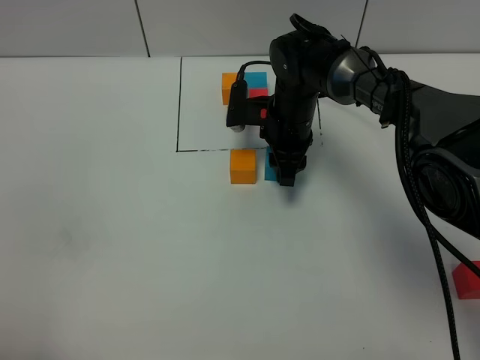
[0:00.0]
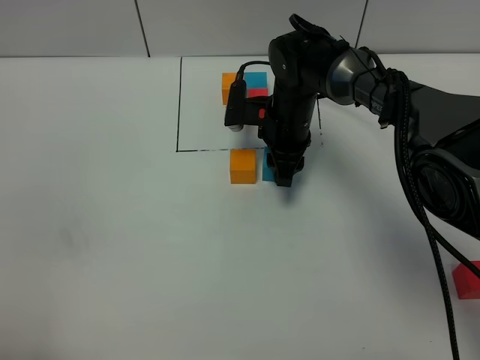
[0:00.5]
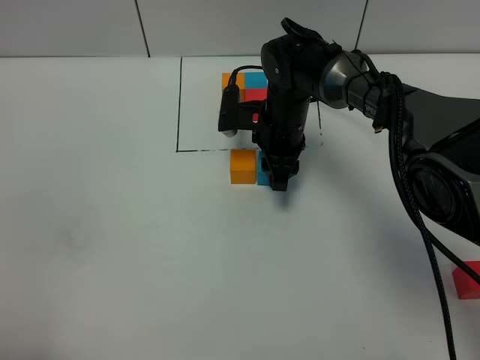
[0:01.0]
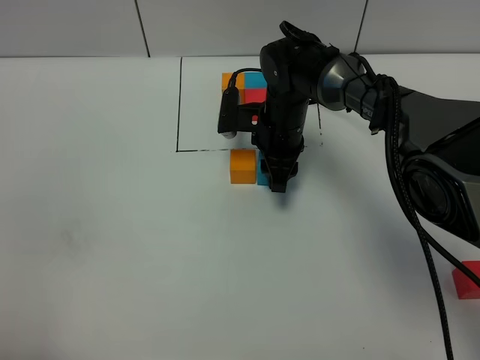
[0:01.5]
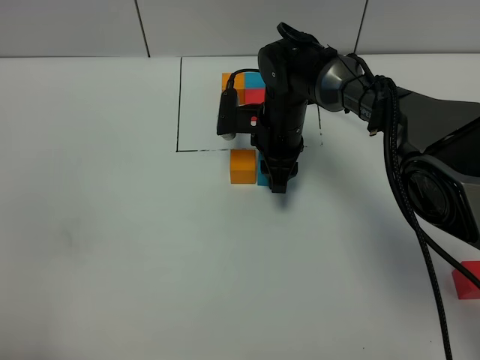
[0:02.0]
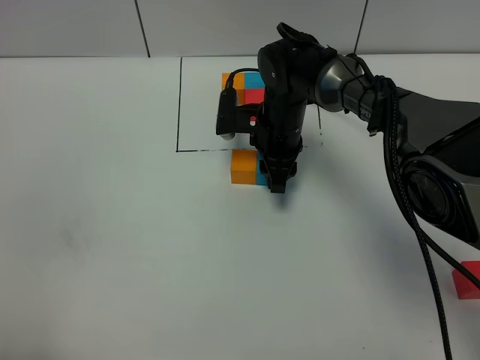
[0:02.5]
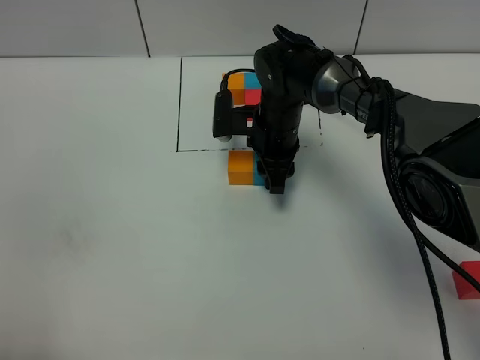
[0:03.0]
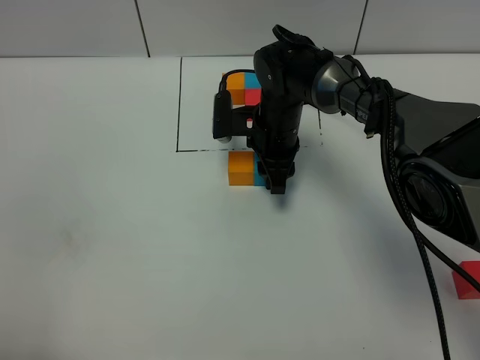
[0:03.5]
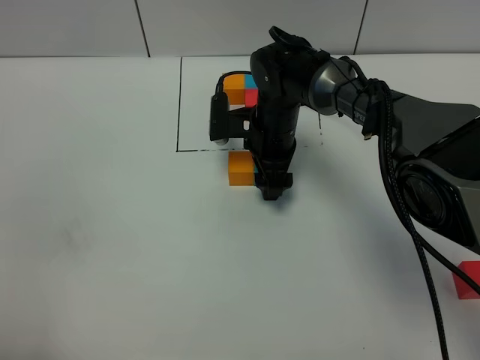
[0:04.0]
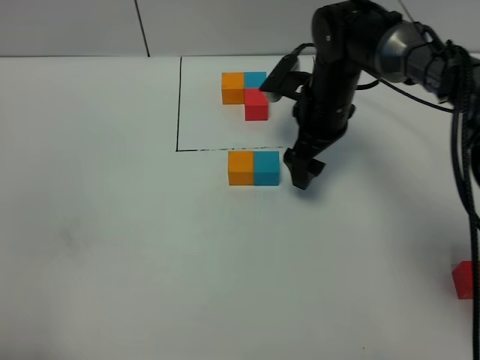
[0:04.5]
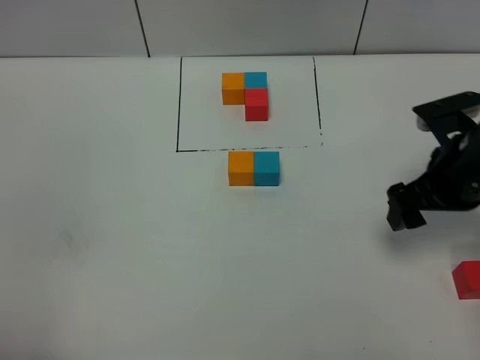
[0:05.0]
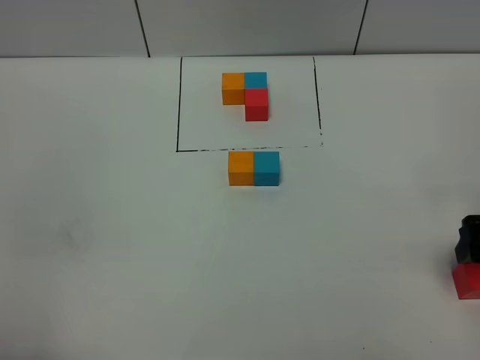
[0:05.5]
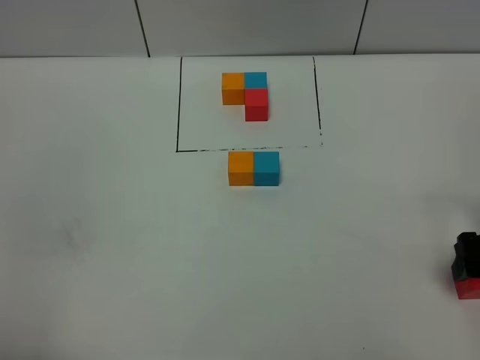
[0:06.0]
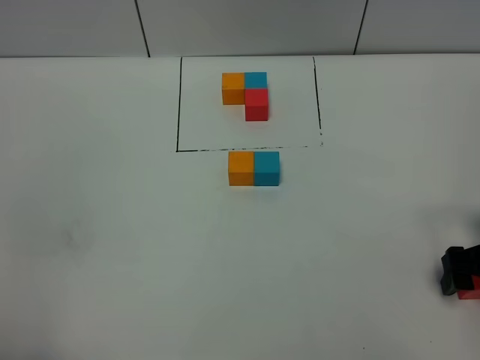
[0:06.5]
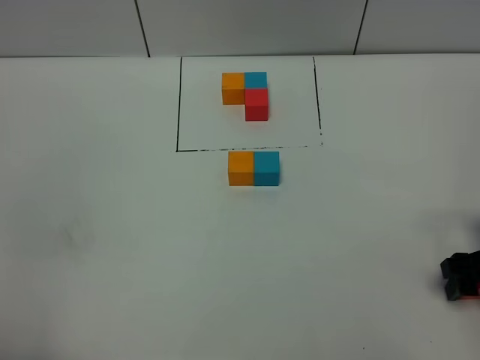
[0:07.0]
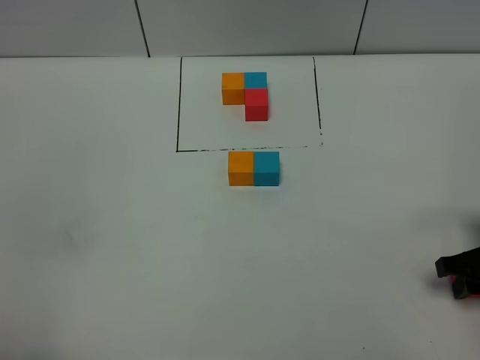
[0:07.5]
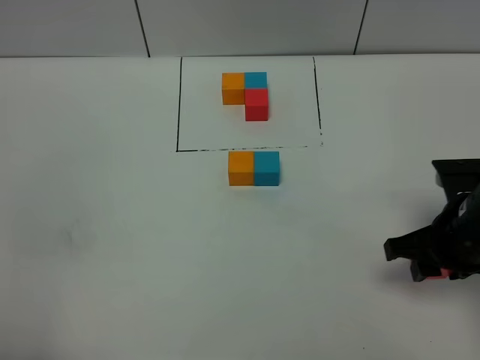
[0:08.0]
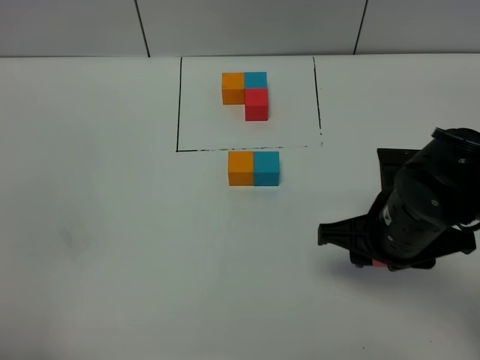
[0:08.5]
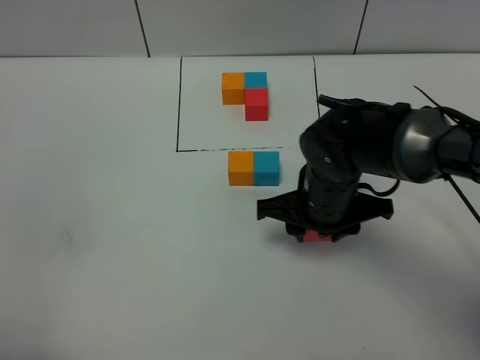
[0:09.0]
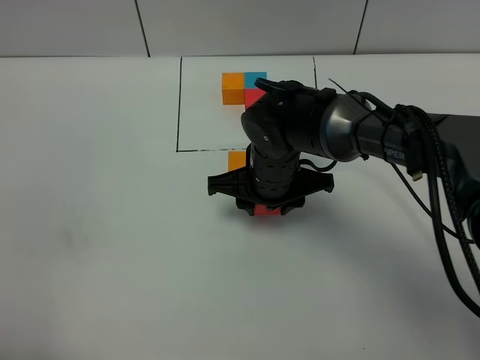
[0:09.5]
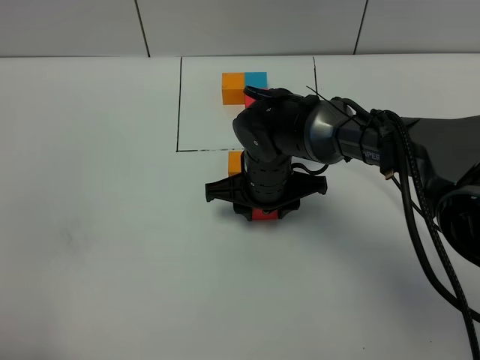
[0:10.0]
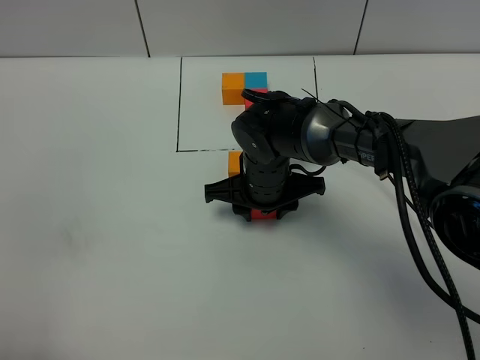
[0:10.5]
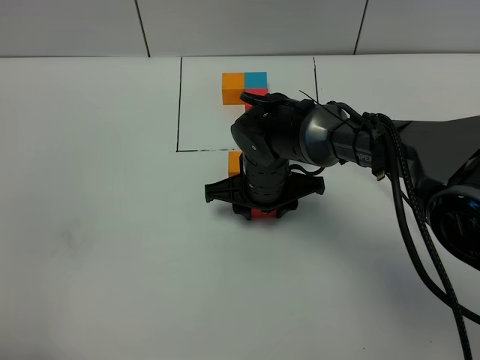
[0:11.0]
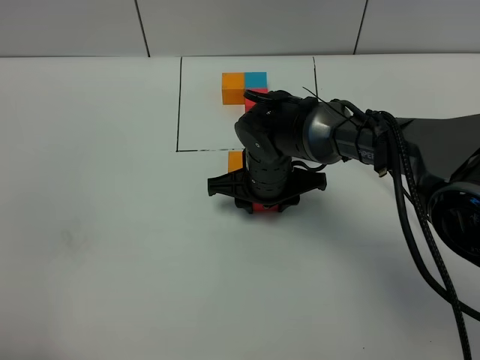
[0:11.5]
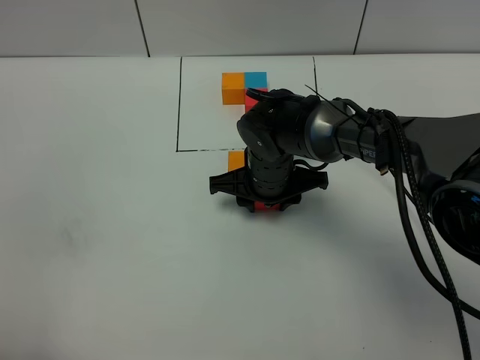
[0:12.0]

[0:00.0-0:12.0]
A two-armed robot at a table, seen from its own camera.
Task of the whole recording: According to the building block template in front, assemble the scattered blocks together.
Step, 0:00.0 to 0:04.0: Put the blue build block on the right of the orange build block.
0:00.0 to 0:02.0: The grippers move only a little.
0:02.0 to 0:04.0: The right gripper opens.
0:04.0 to 0:06.0: The right gripper heads to the right and backward, covering roughly 35 cm.
0:06.0 to 0:08.0: The right gripper is displaced to the left by about 10 cm, and closes its fingers.
0:08.0 to 0:10.0: The right gripper shifts roughly 25 cm to the left and forward.
0:10.0 to 0:12.0: There are only small adjustments of the grippers.

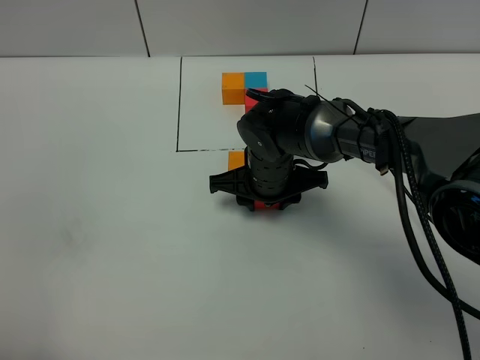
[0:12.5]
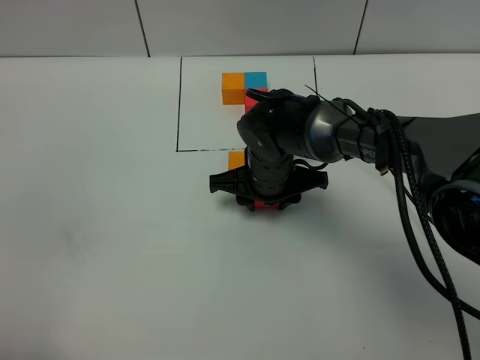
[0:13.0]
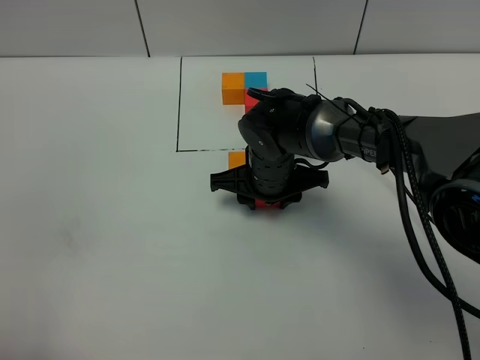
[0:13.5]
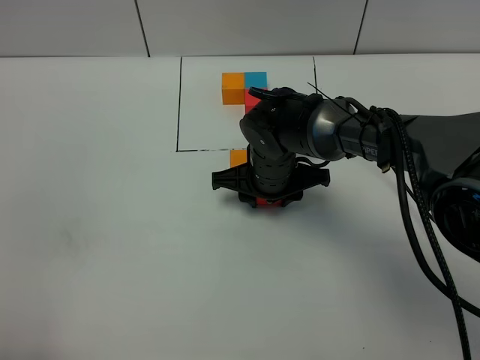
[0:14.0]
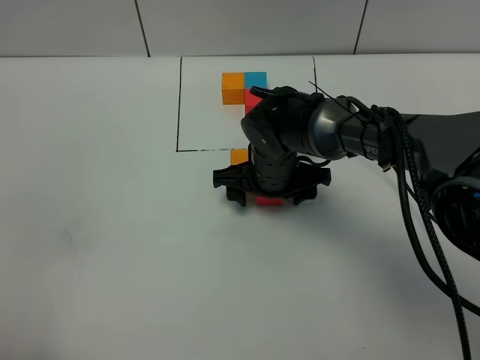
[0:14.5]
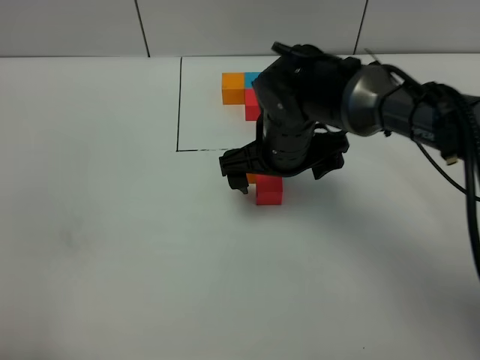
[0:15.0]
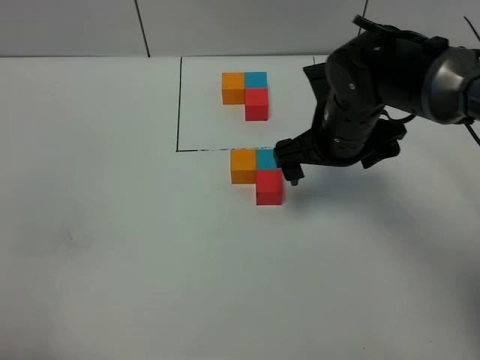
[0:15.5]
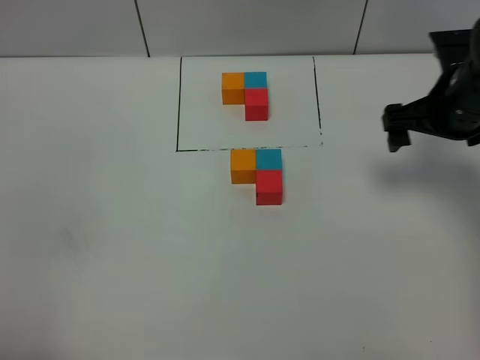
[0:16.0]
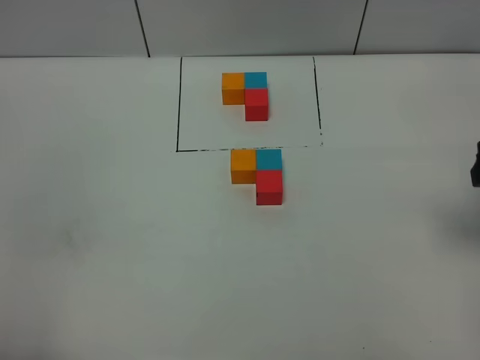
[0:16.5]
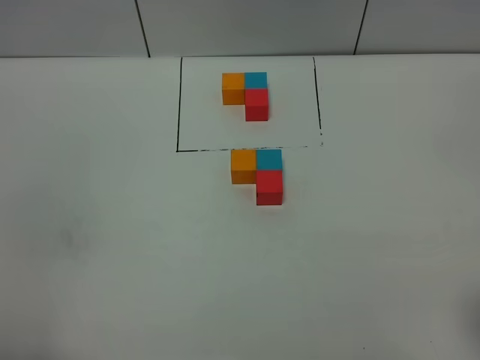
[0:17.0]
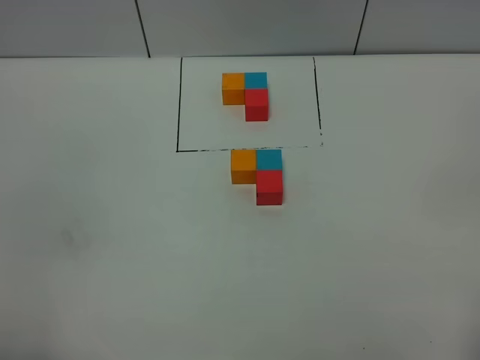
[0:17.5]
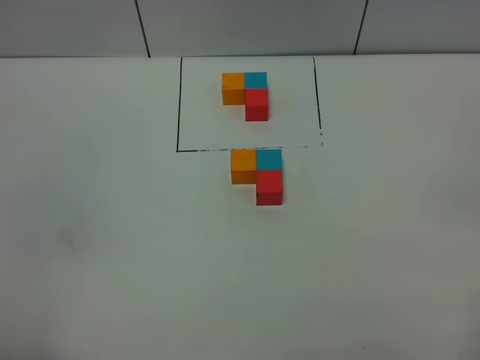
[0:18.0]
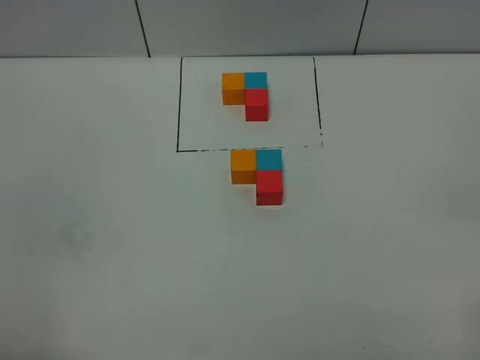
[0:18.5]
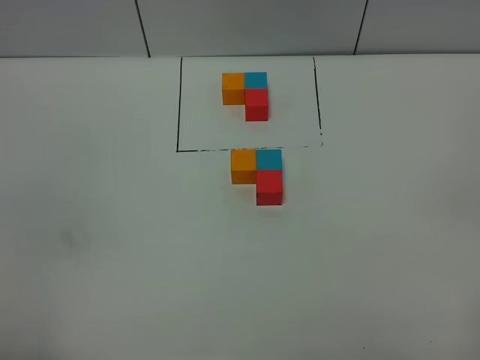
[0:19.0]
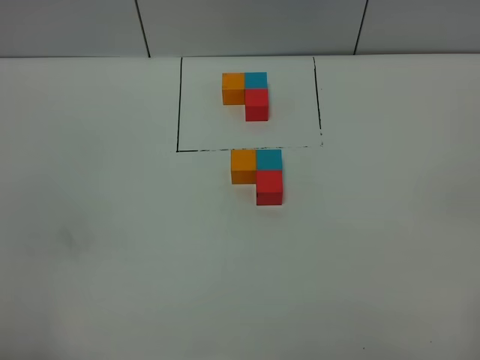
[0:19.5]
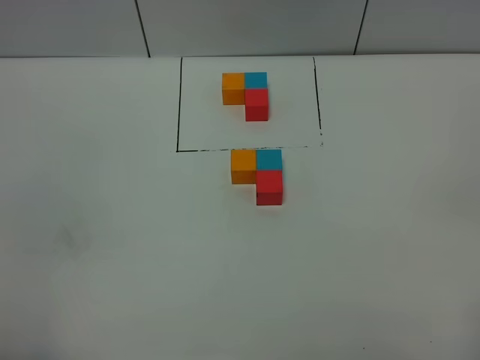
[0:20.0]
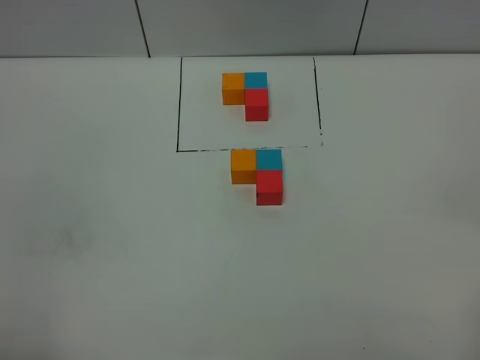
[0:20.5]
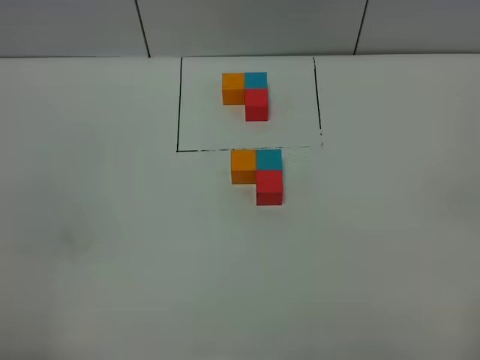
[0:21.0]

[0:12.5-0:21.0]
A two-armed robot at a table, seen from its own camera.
Task of the whole recording: According to the building block template in front, assemble the scattered blocks together.
Step, 0:12.5 to 0:14.5: Put the red build block on the behind of the blue build block.
0:12.5 to 0:14.5: The right gripper opens its fingers.
0:14.5 to 0:16.5: The right gripper moves to the right, upward and backward, approximately 35 cm.
0:19.0 to 0:21.0: The two grippers keep their place.

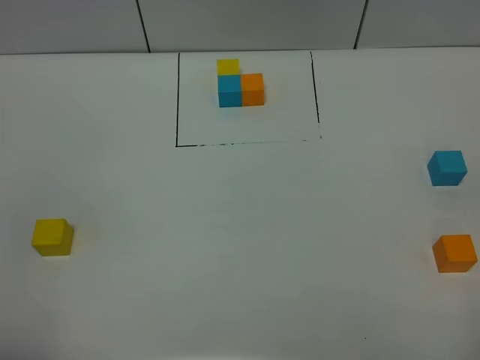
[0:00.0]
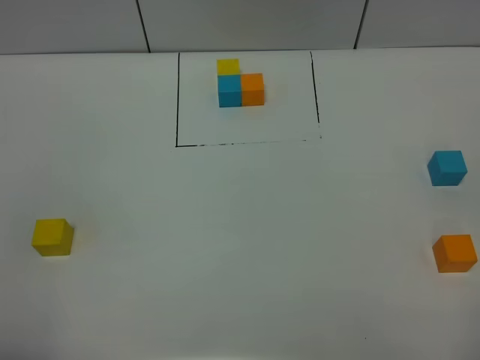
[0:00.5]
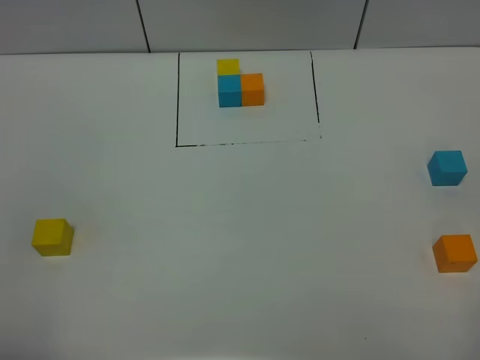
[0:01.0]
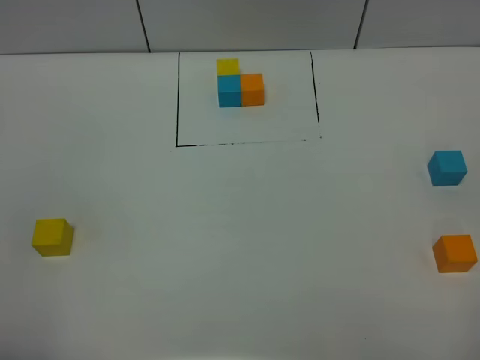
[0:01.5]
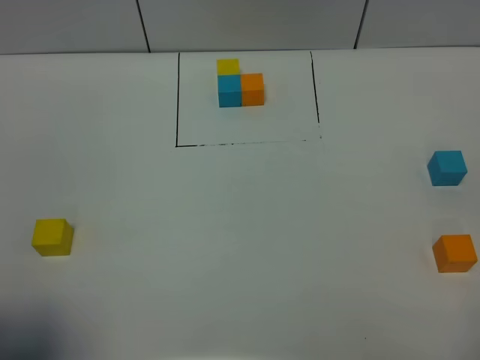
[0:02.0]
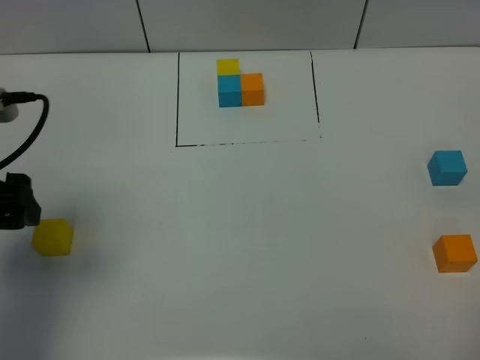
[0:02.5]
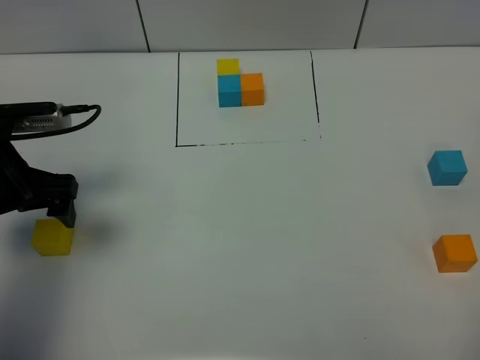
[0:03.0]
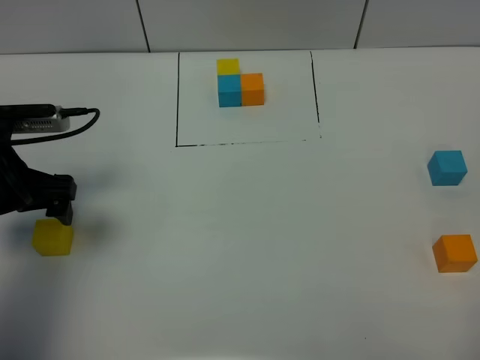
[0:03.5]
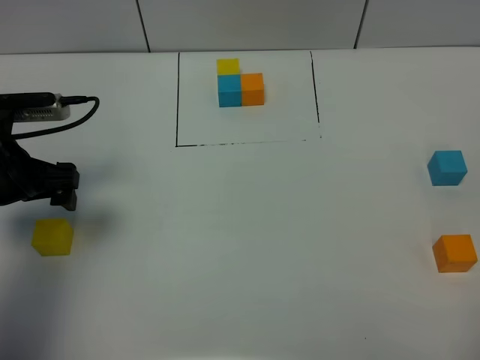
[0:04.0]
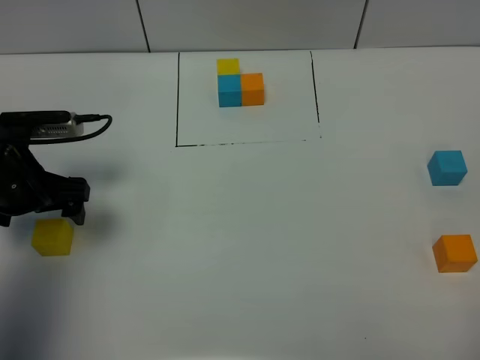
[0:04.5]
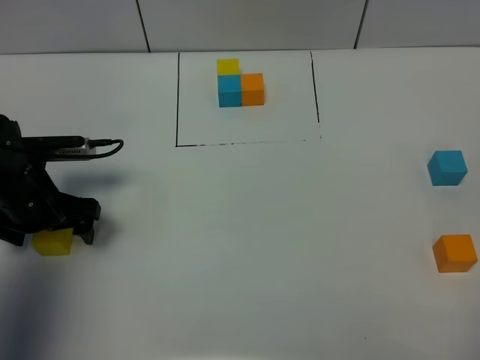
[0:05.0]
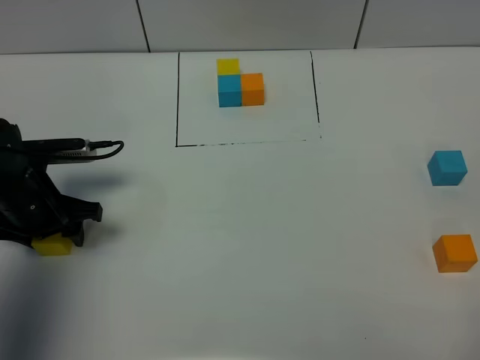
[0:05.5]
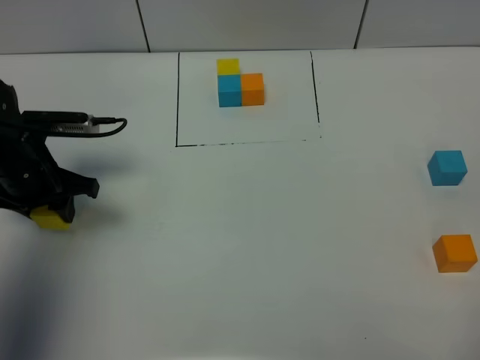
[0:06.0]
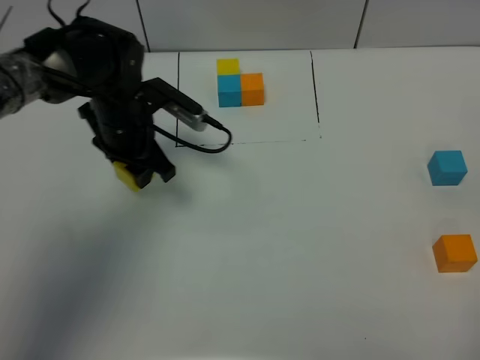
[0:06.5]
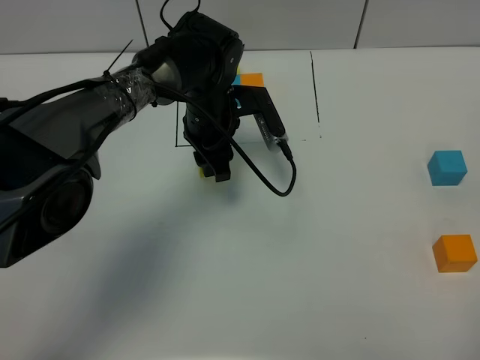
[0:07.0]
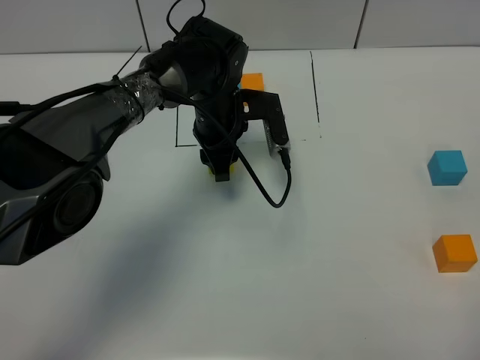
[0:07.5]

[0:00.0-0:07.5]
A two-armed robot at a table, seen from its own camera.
Task of the whole recording: According to the building block template in front, assemble the scattered blocks together.
0:00.0 to 0:02.0: The left gripper travels forward by some 5 cm, and opens its fingers.
0:02.0 to 0:04.0: The left gripper travels forward and downward by about 25 cm.
0:04.0 to 0:05.5: The left gripper is displaced downward by about 10 cm, and closes up.
0:05.5 to 0:07.5: The left gripper heads to the right and forward, covering some 25 cm.
